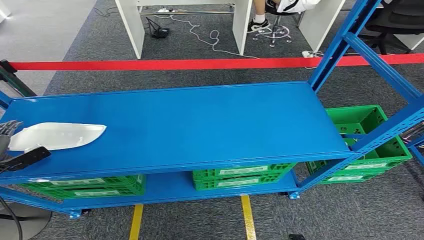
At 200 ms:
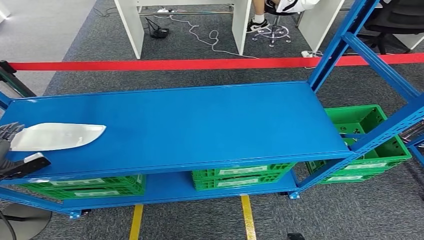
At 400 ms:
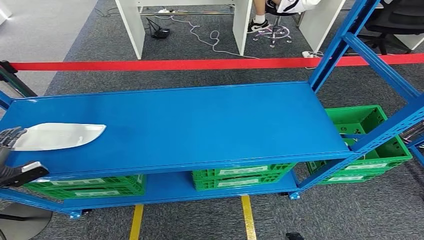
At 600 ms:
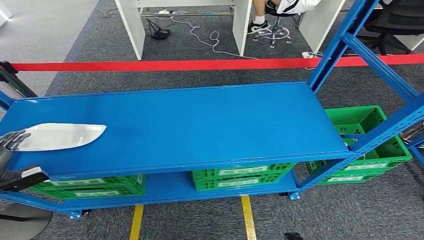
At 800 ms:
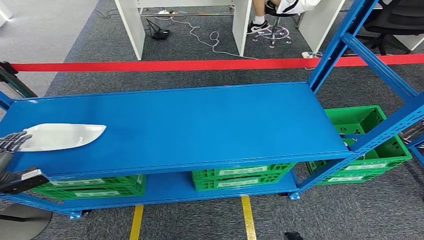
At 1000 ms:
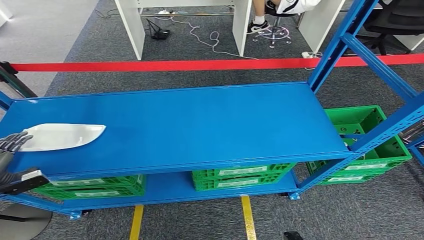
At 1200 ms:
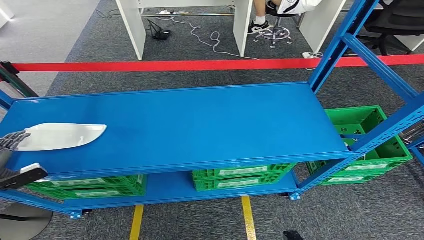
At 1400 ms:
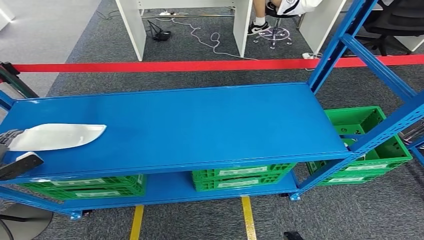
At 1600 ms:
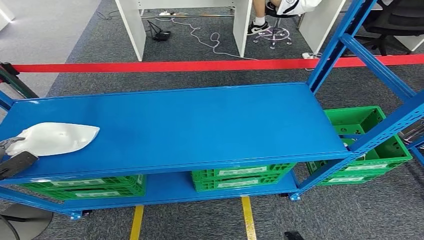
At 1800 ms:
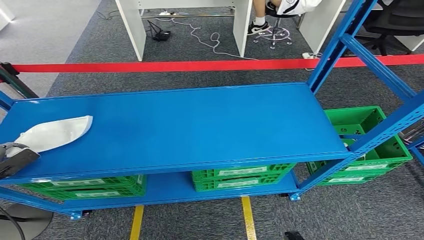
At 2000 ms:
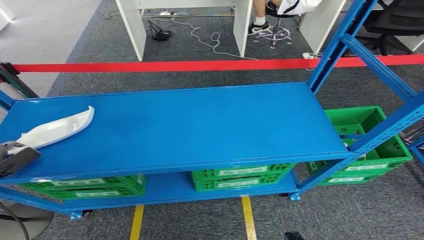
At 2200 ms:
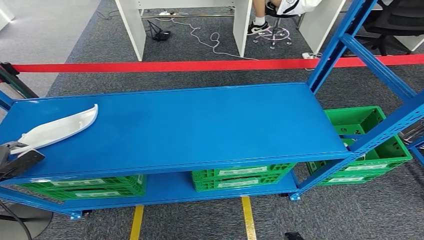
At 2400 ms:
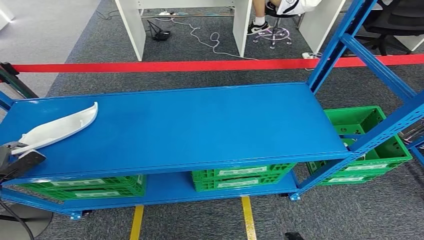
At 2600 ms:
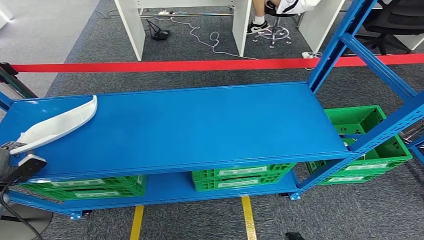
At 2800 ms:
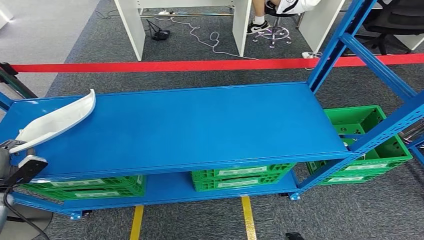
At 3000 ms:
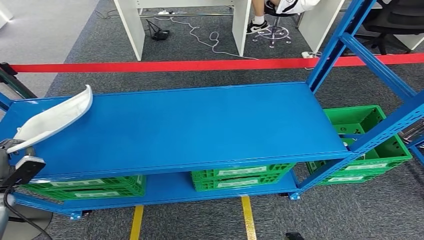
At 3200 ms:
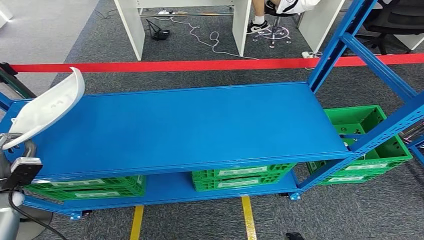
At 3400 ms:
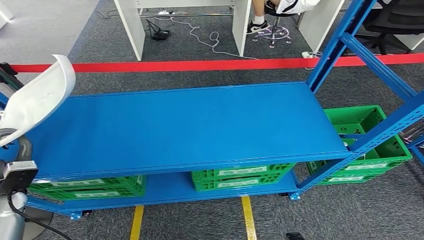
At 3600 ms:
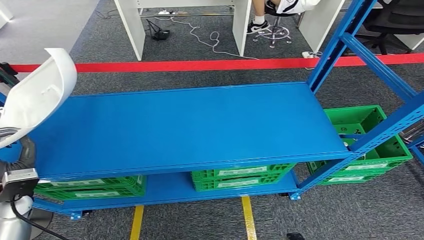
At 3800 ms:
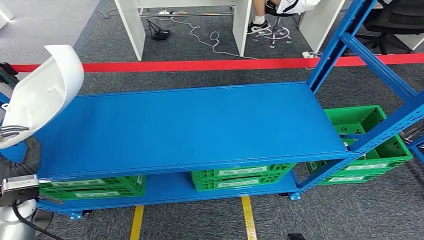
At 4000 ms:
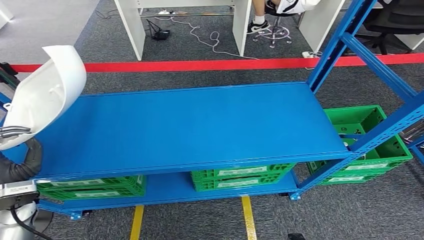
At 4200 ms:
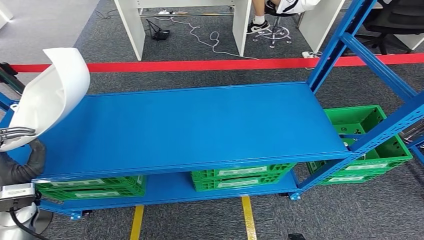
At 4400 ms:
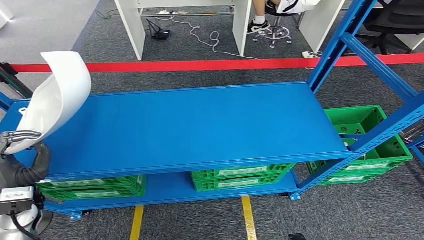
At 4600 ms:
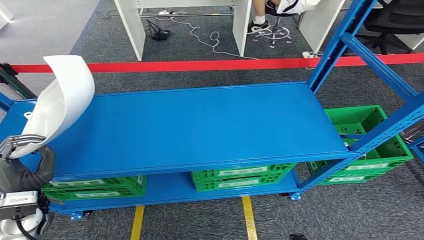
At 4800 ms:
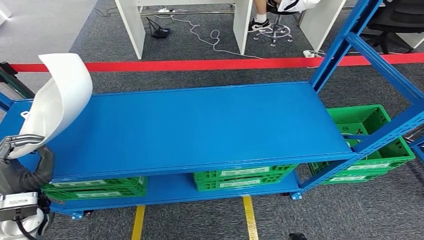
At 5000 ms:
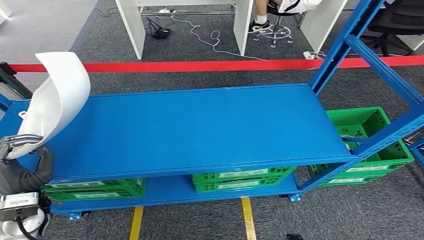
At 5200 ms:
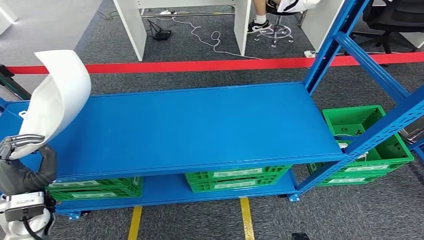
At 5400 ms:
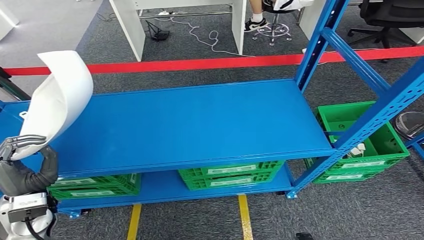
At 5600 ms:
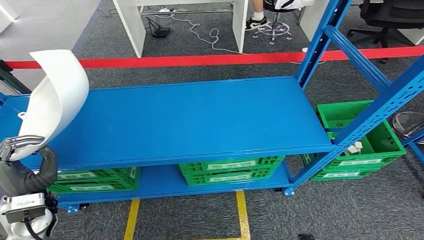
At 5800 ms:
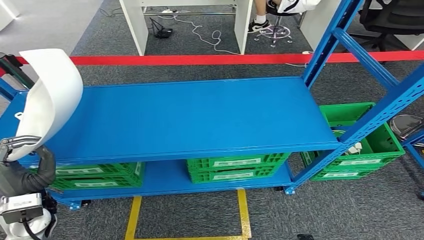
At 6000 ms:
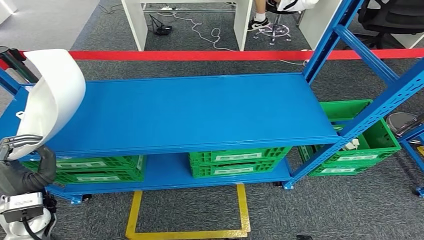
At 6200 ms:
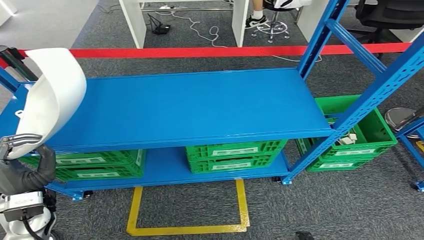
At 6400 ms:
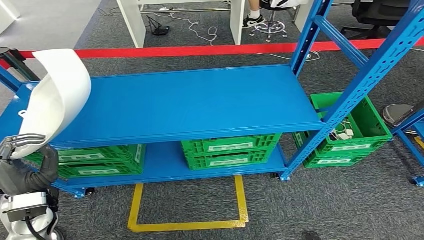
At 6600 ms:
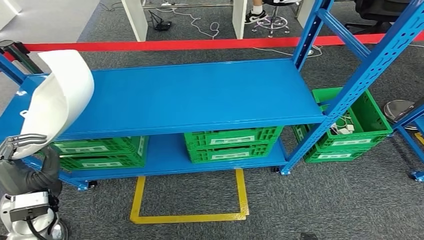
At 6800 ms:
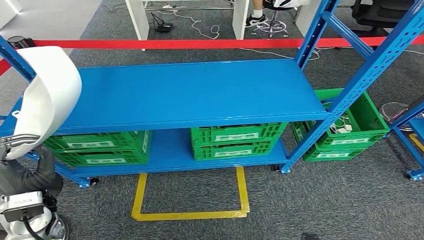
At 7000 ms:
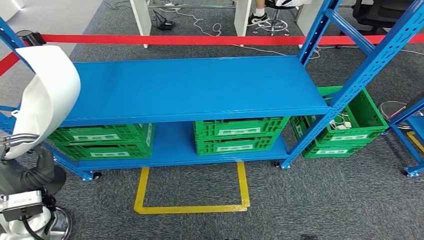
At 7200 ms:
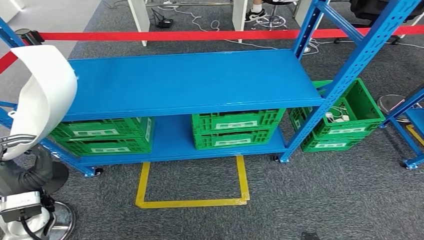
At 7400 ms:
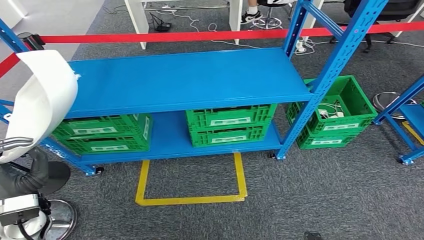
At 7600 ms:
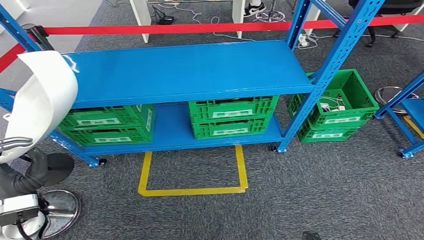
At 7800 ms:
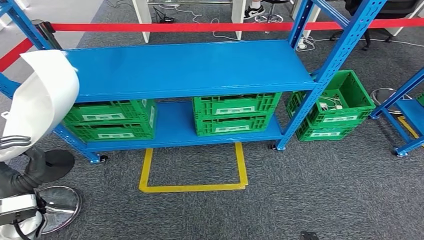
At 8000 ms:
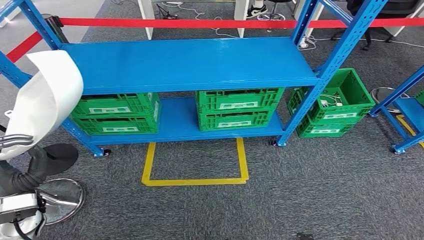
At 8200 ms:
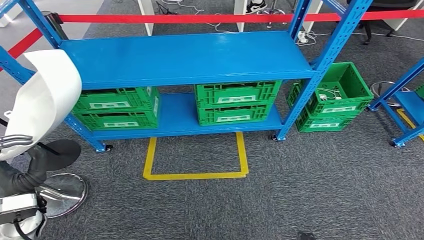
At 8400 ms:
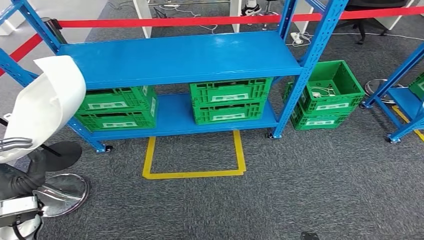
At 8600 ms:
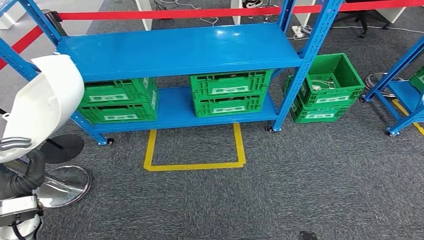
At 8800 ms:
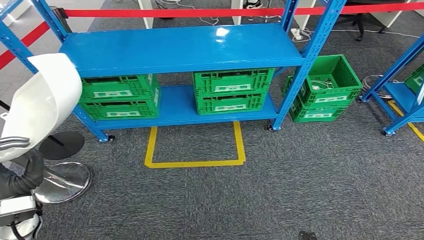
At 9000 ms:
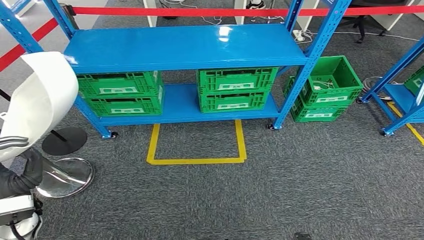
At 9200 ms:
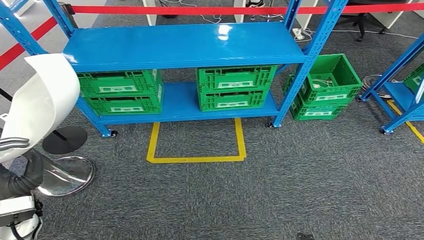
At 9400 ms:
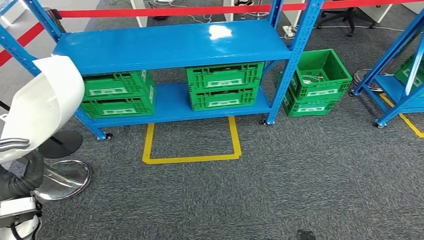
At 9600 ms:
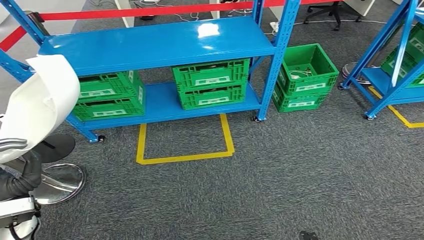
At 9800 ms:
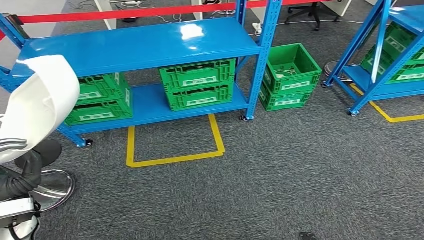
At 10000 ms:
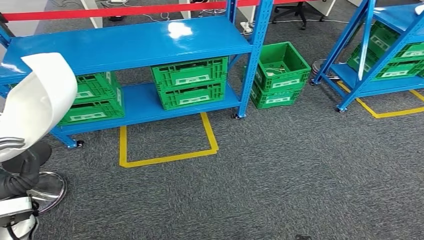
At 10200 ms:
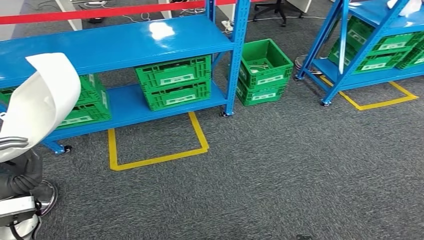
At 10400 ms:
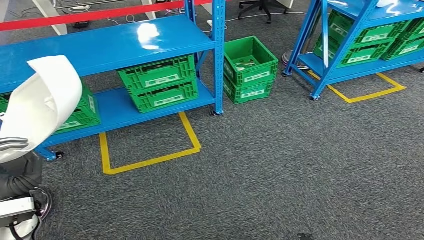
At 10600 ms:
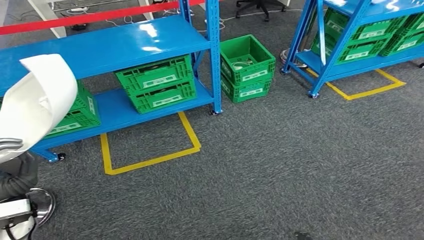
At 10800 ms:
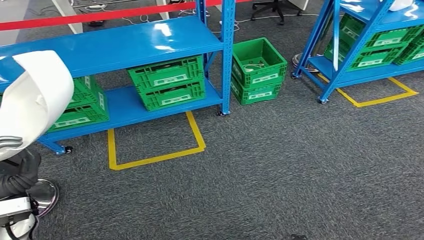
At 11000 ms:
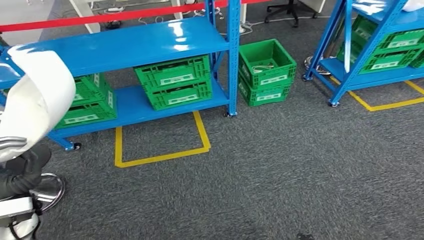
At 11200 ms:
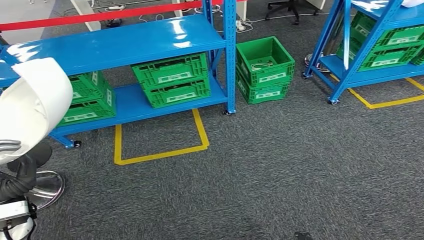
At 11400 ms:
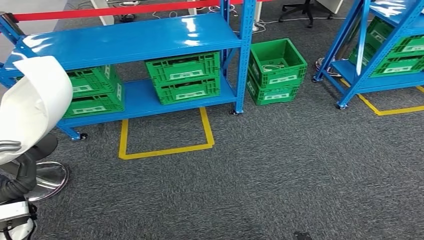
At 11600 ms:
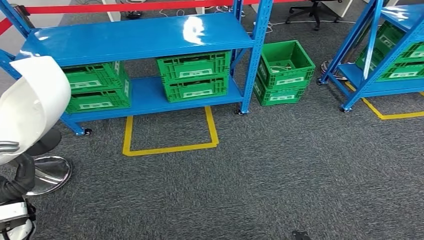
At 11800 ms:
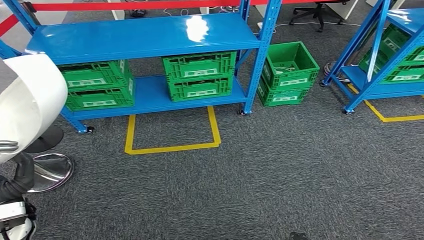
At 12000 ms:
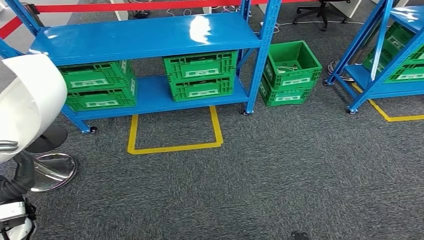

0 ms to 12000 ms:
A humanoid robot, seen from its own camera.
Step, 0 ms to 5800 ms: Take small components from the rack.
1600 ms to 3000 ms: The left hand moves to the right, approximately 5 cm.
3000 ms to 4400 ms: The left hand shifts some 20 cm to the right and upward.

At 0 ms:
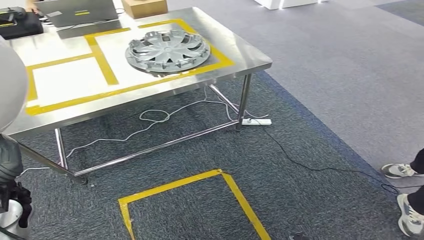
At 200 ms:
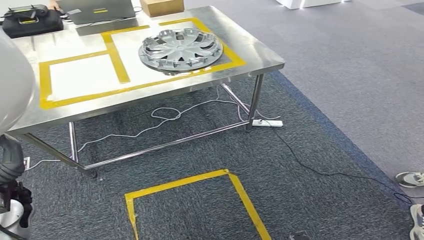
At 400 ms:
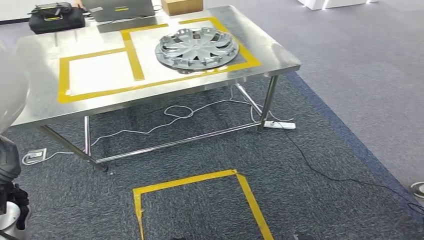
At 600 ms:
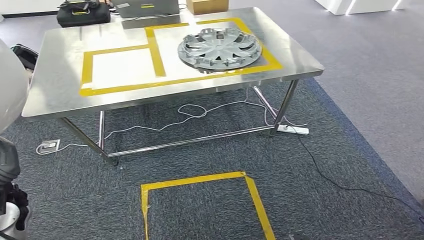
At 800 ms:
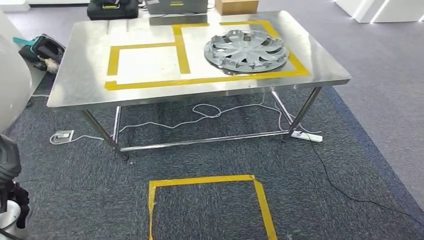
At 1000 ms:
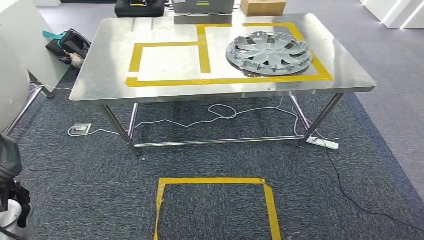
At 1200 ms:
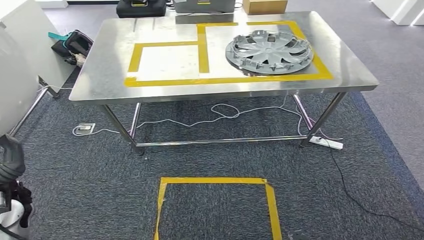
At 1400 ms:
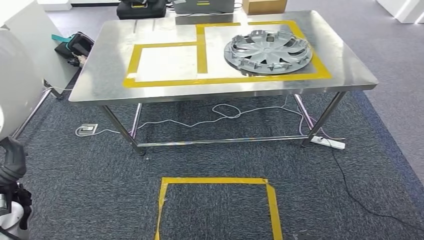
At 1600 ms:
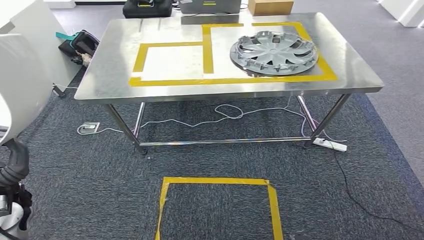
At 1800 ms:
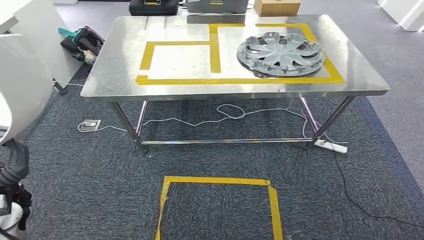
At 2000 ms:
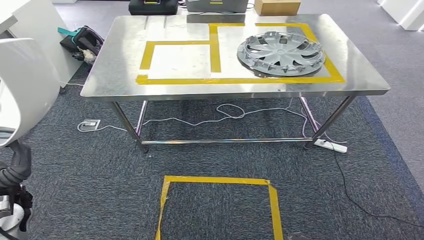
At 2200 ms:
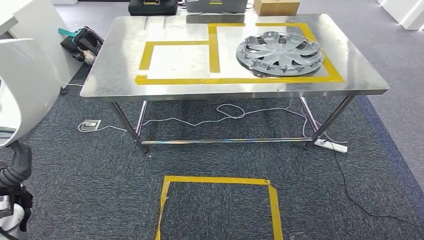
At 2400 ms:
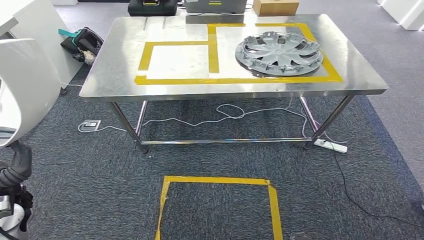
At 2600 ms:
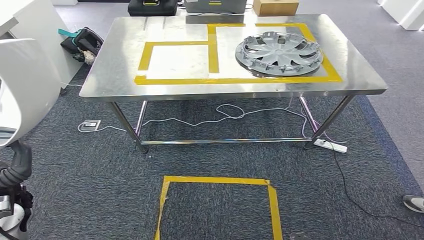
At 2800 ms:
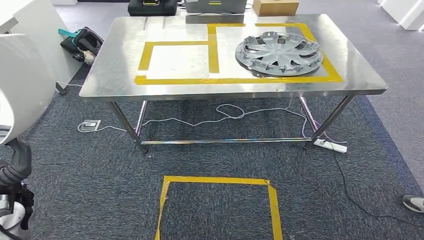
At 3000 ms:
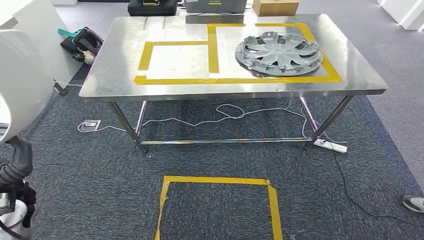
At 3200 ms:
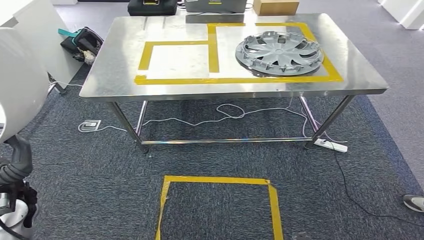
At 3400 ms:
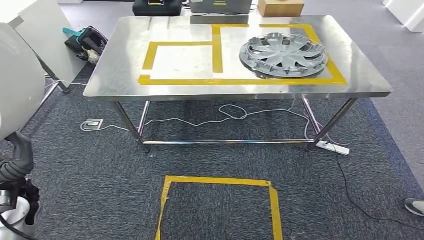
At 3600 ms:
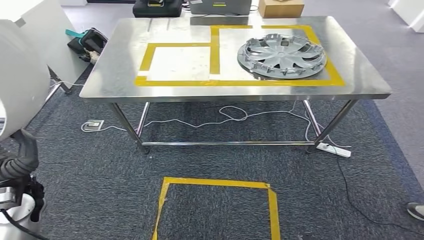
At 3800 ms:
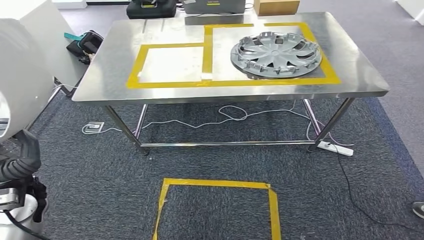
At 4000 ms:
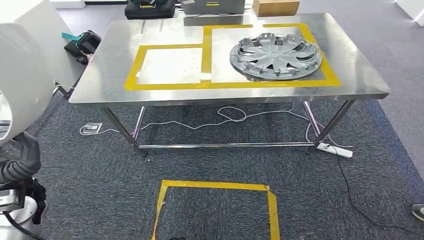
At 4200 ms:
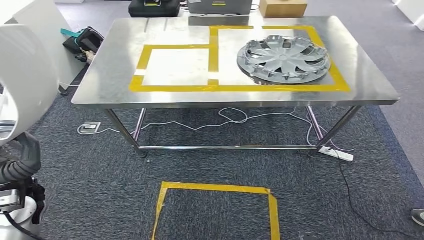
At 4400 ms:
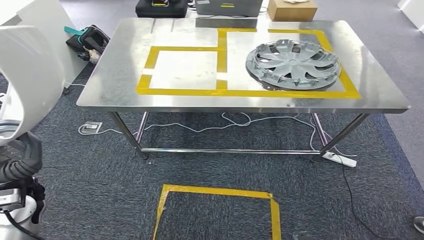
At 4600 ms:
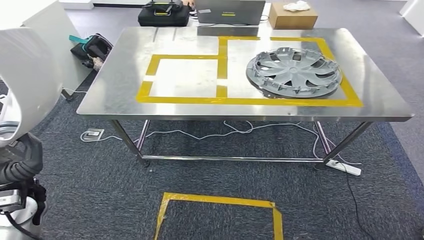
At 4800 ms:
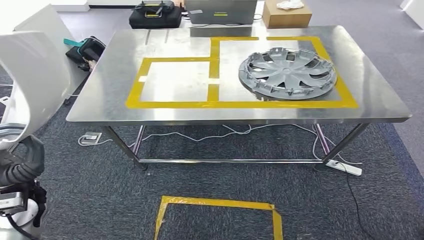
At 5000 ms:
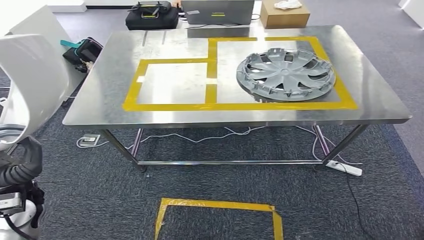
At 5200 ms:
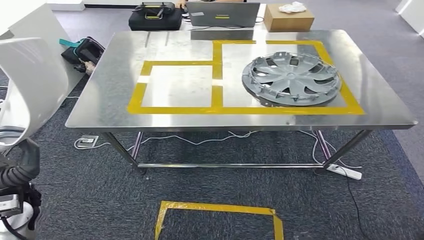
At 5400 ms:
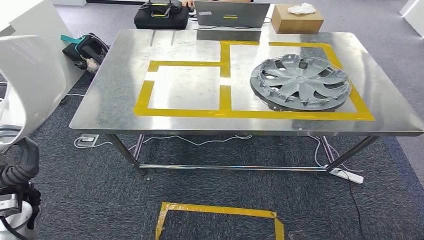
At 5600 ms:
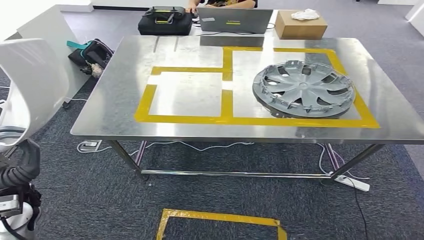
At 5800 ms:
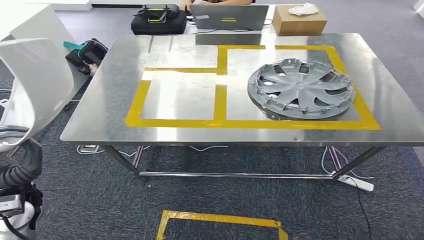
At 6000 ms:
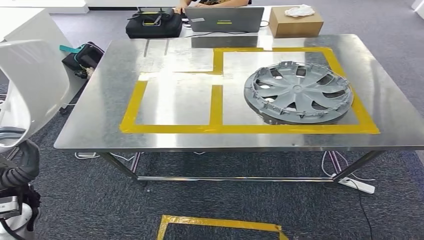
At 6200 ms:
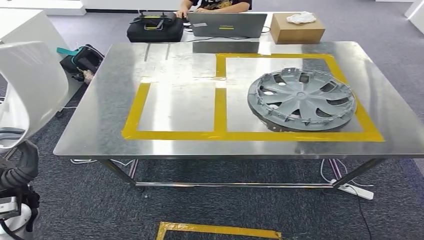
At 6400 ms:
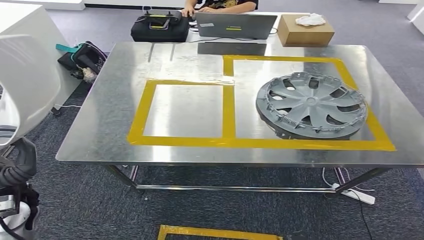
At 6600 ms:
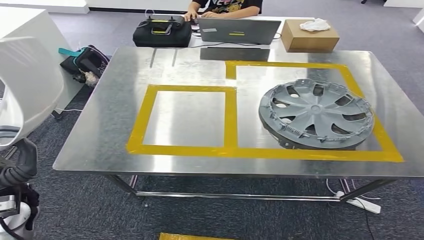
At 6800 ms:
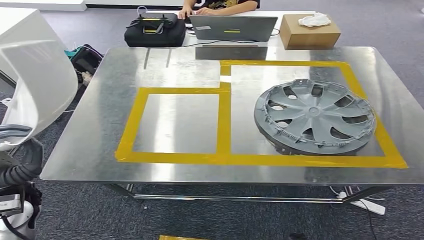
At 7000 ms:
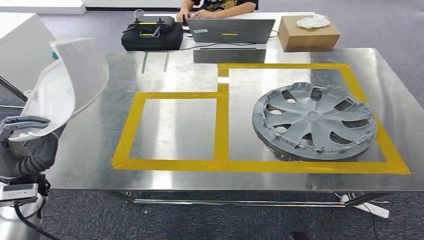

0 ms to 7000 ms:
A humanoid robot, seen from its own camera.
Step, 0 ms to 2000 ms: Move the small parts to the workbench.
